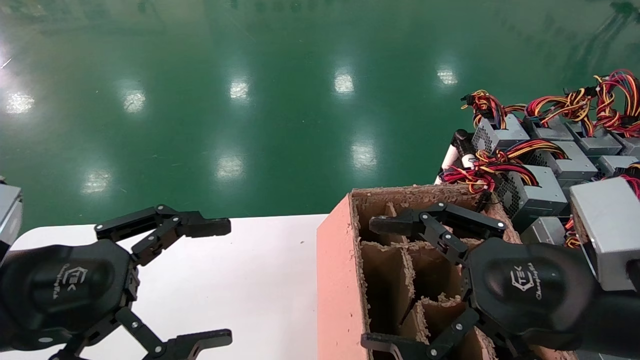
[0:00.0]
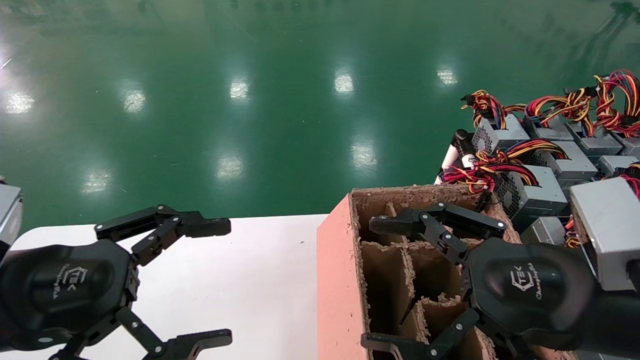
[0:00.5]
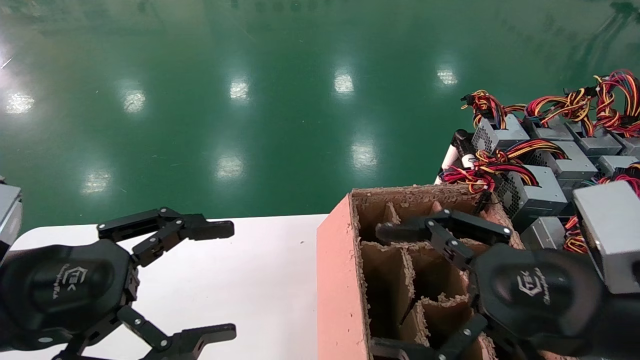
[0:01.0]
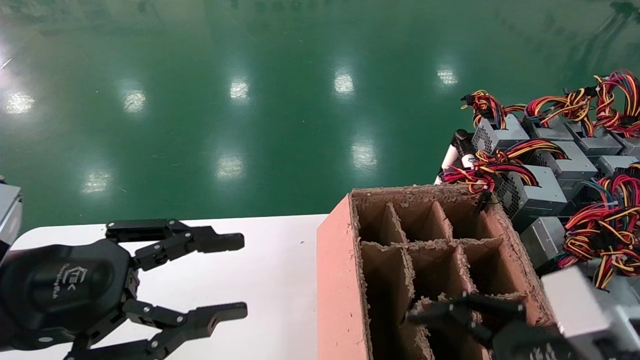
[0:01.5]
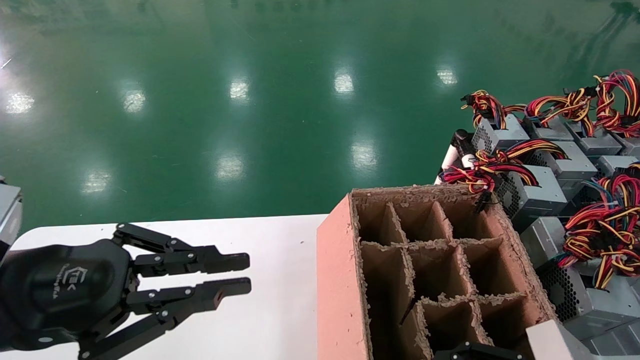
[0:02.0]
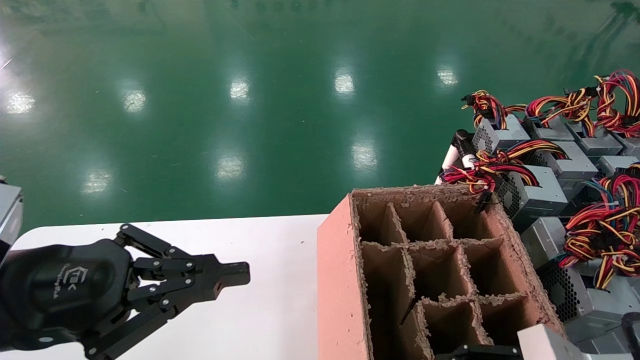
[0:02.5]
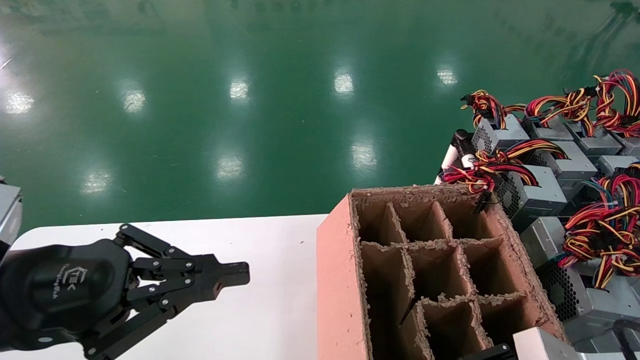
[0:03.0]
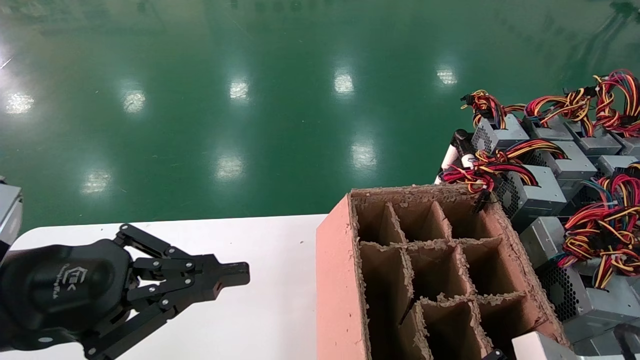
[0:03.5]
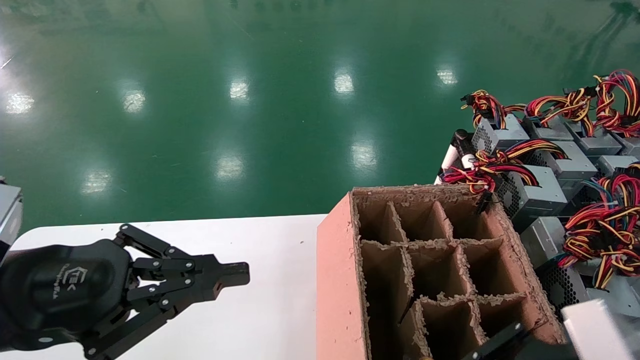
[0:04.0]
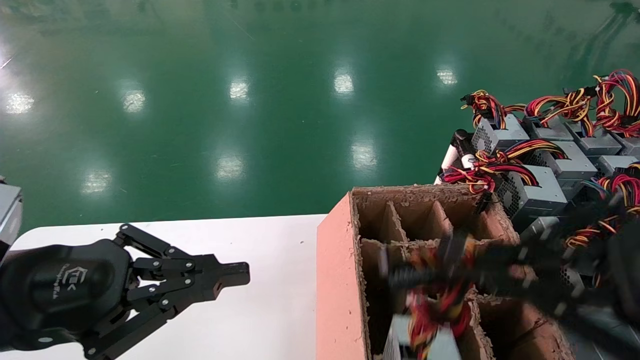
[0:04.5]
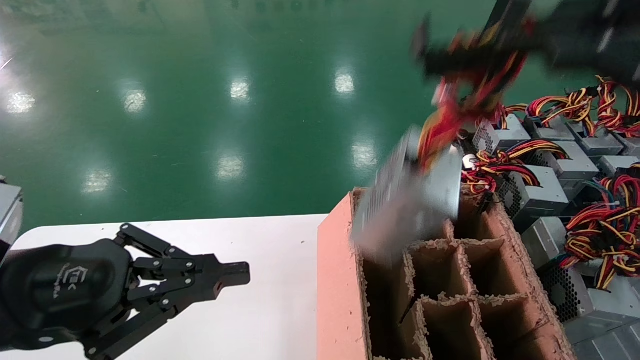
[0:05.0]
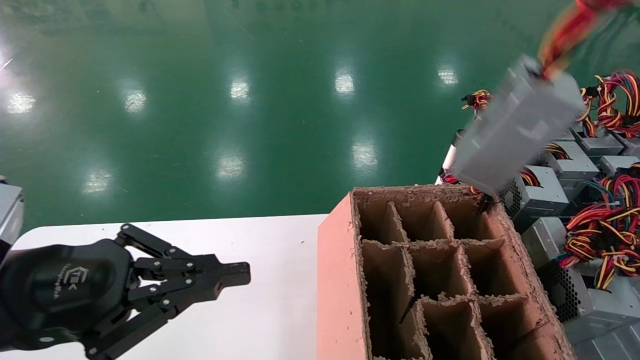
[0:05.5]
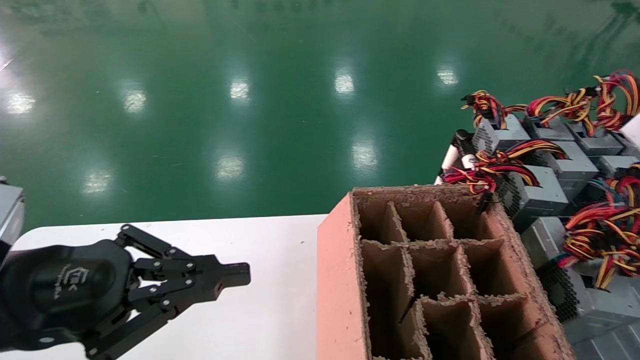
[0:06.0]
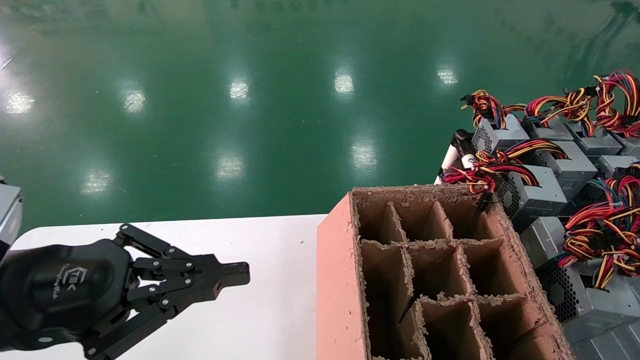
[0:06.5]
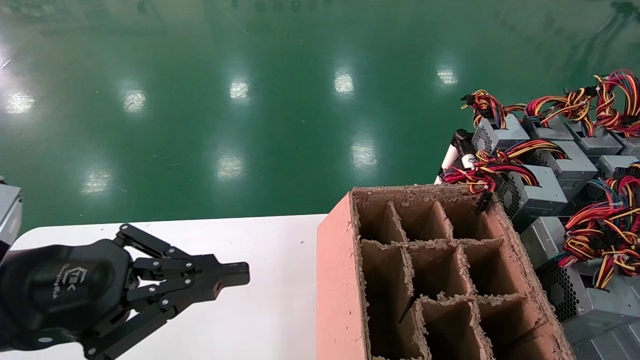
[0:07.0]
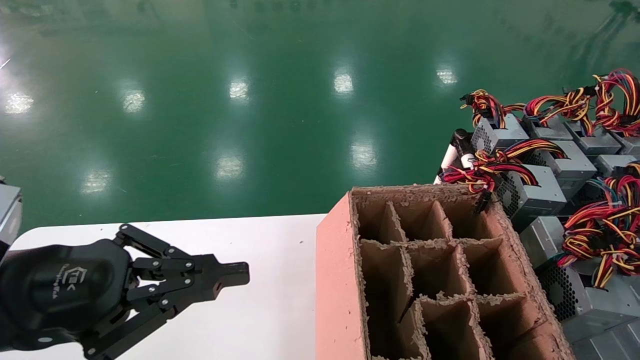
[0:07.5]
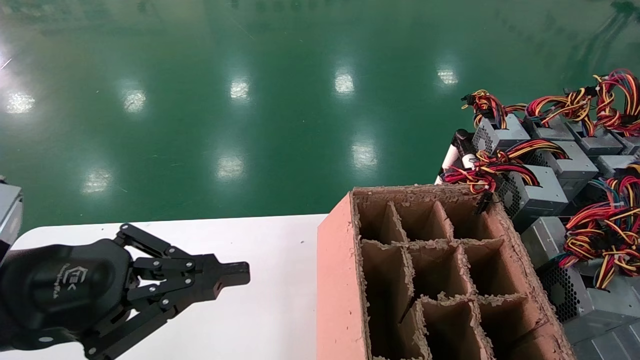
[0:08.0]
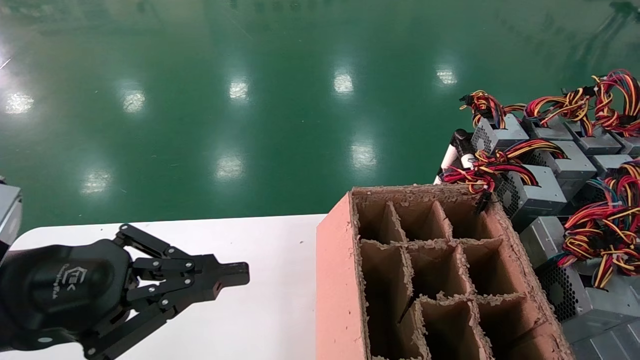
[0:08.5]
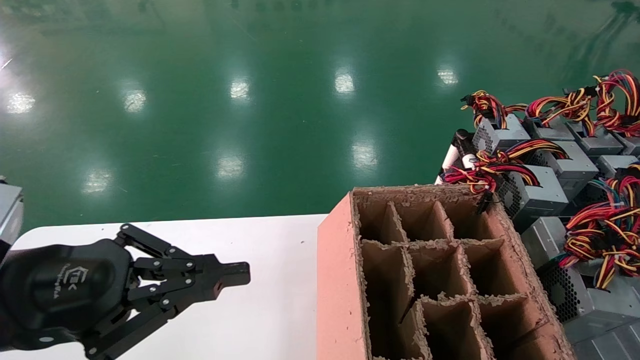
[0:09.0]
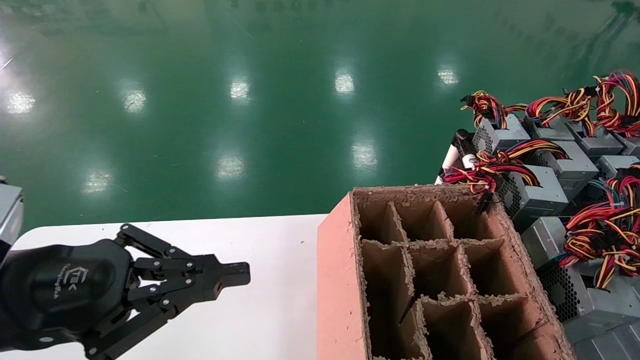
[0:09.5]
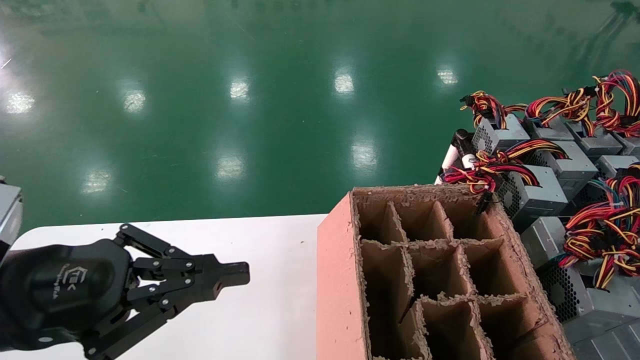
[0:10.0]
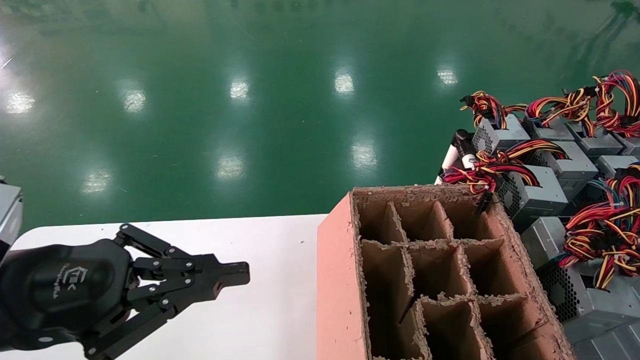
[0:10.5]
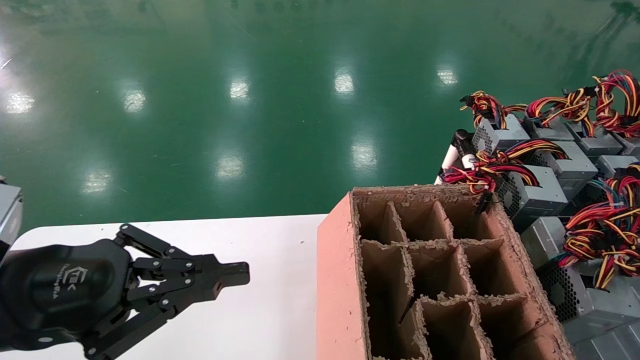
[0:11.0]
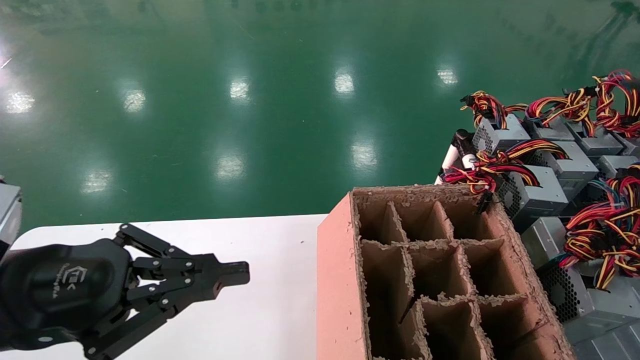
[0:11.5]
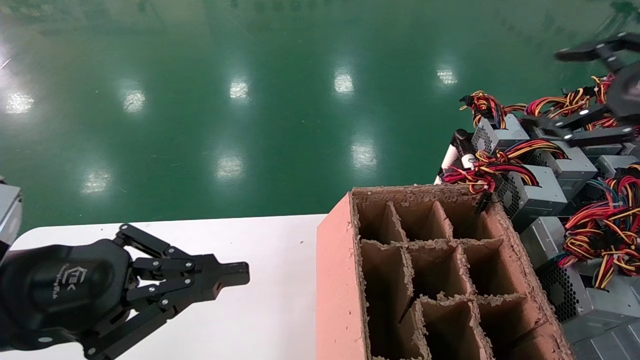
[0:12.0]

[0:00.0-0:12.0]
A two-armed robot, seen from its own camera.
Step, 0:01.5 to 0:03.5: Grab the main unit power supply from the containment box.
Step, 0:04.0 to 0:10.5: Place the main unit power supply in the designated area.
0:00.0 to 0:02.0: The right gripper heads downward, covering about 10 cm; the left gripper closes.
0:02.0 to 0:04.0: The right gripper moves upward, some 5 cm, and closes.
0:04.0 to 0:06.0: The right gripper shifts some 40 cm upward, to the right and backward.
0:10.0 to 0:12.0: The right gripper shifts about 20 cm to the left, and opens its fingers.

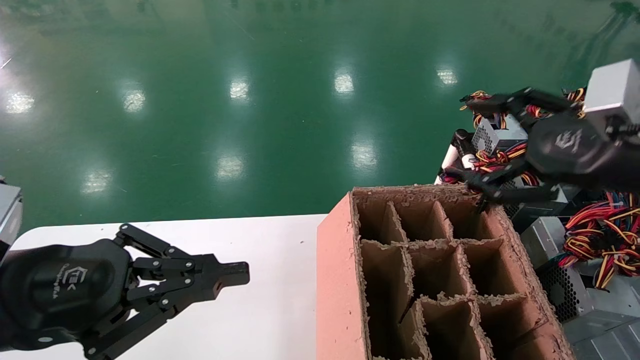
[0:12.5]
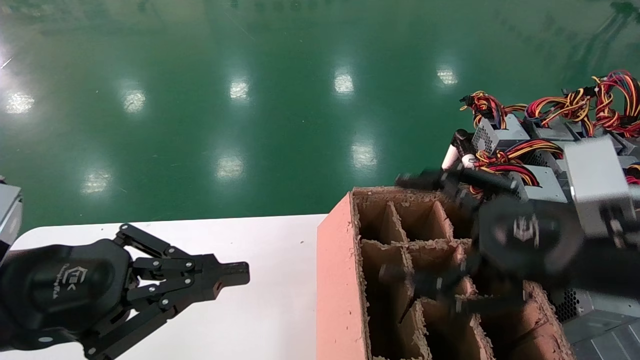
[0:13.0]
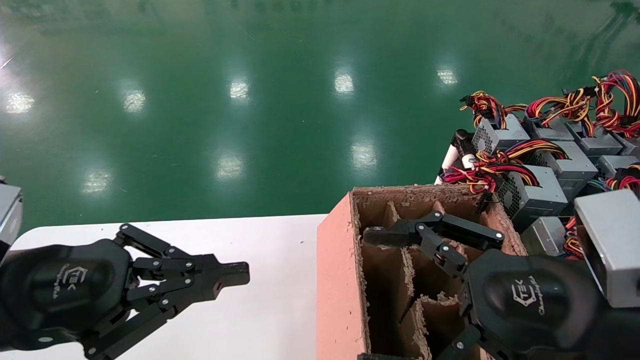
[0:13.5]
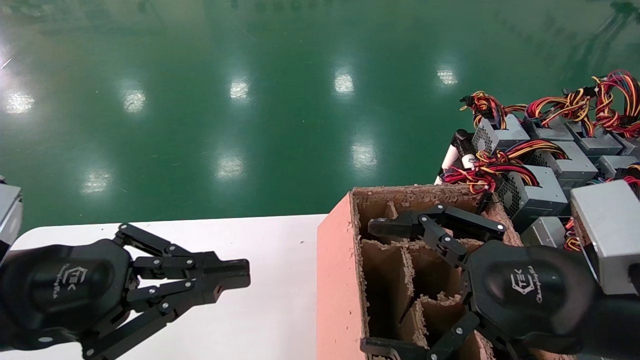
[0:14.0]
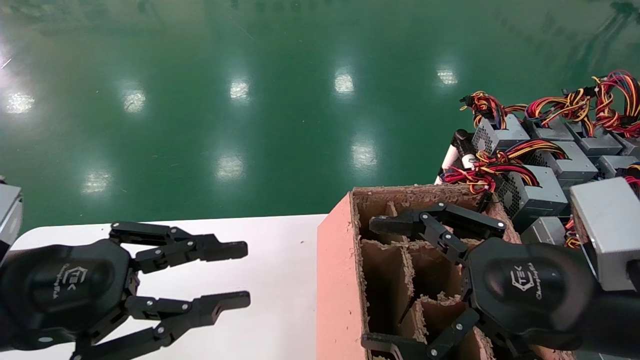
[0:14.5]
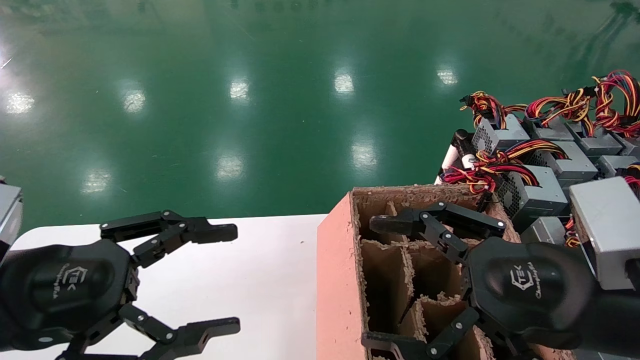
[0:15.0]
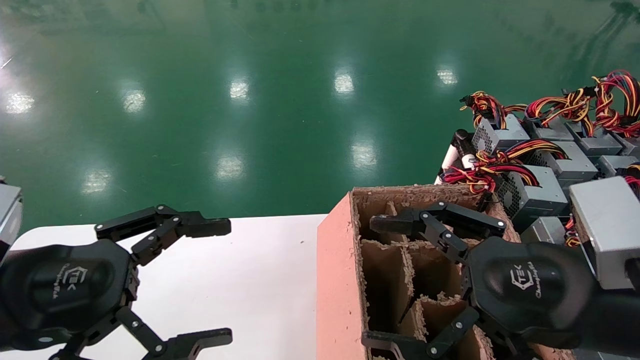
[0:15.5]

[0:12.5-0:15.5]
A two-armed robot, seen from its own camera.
0:12.5 to 0:14.0: The right gripper goes approximately 15 cm to the left, downward and backward.
0:14.0 to 0:15.5: The left gripper opens.
